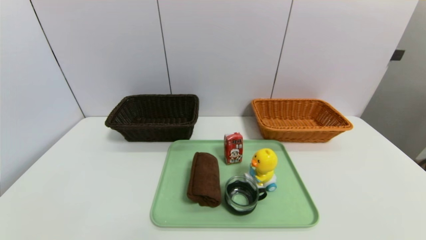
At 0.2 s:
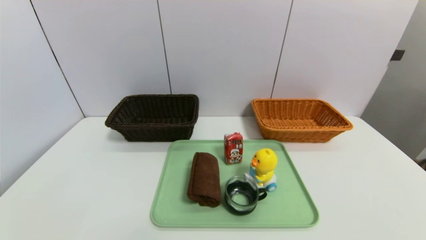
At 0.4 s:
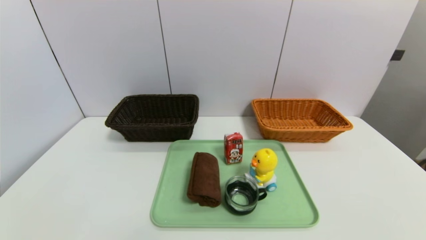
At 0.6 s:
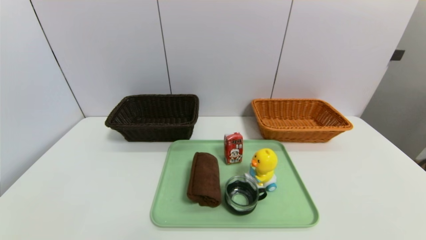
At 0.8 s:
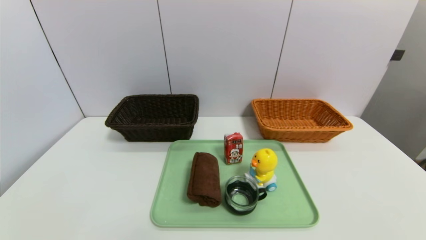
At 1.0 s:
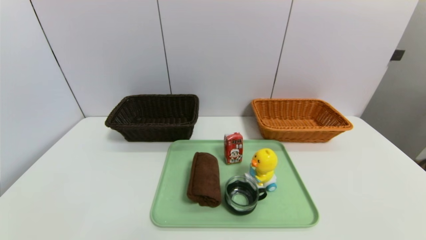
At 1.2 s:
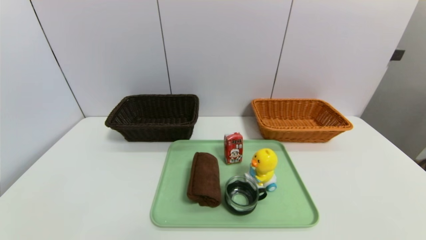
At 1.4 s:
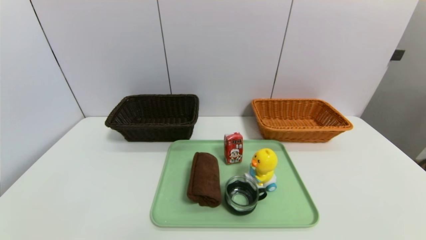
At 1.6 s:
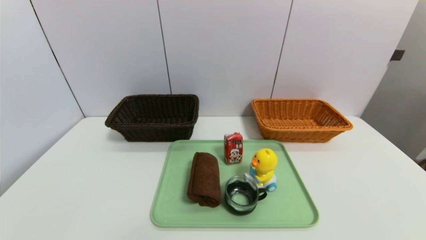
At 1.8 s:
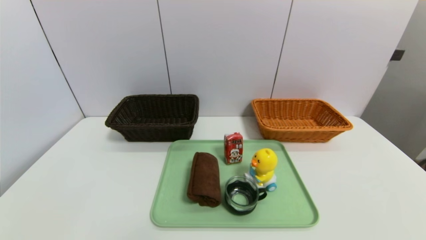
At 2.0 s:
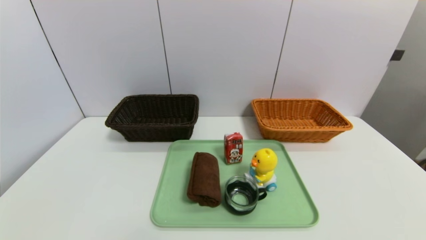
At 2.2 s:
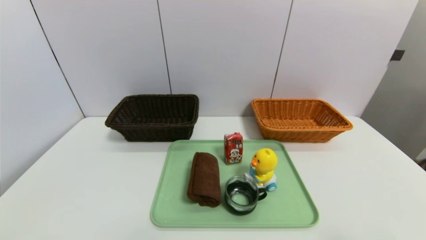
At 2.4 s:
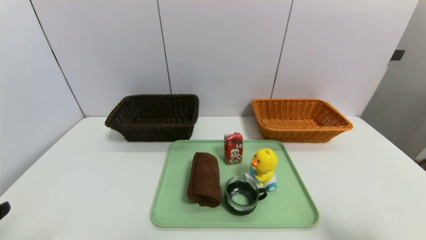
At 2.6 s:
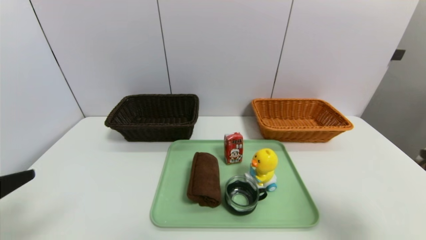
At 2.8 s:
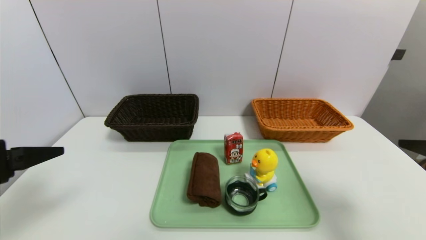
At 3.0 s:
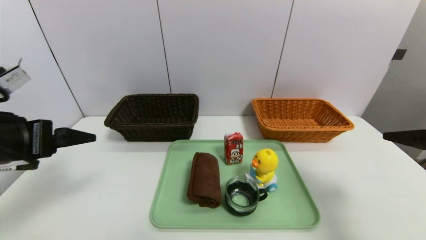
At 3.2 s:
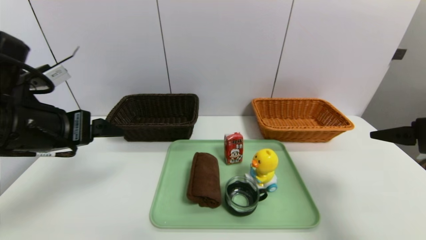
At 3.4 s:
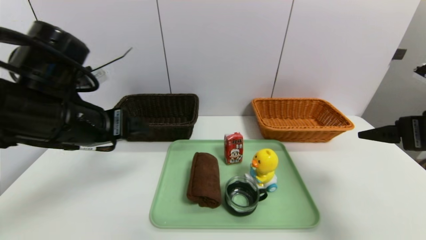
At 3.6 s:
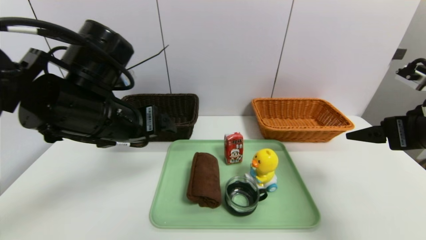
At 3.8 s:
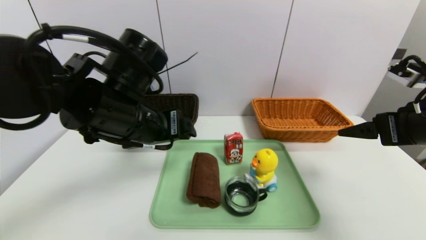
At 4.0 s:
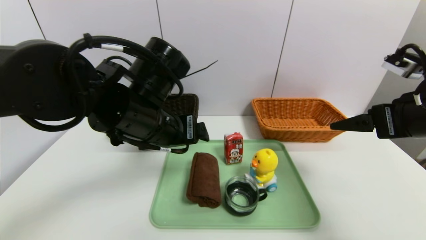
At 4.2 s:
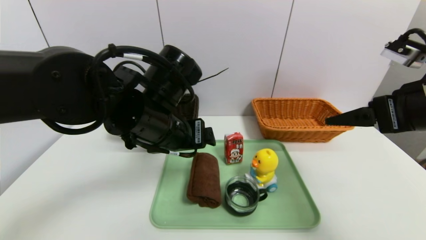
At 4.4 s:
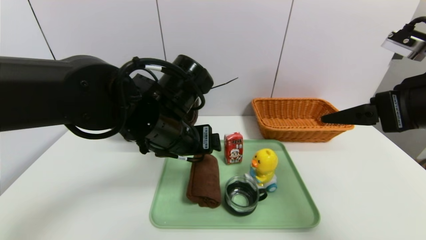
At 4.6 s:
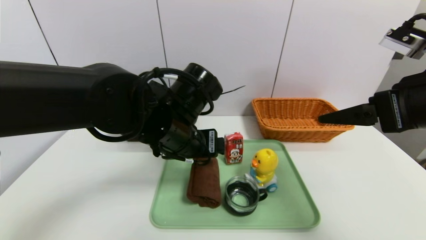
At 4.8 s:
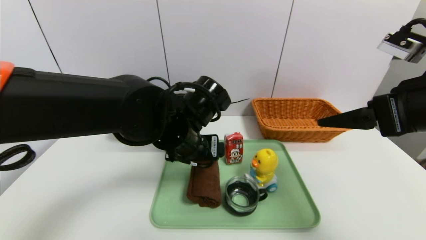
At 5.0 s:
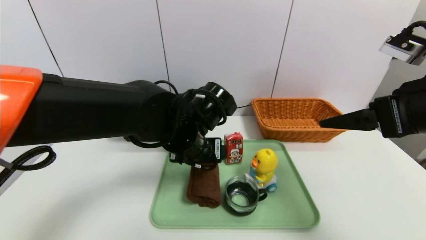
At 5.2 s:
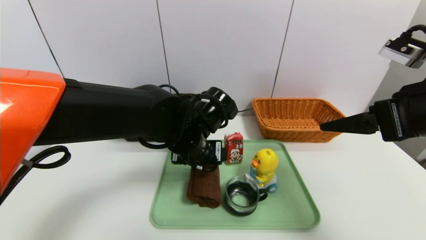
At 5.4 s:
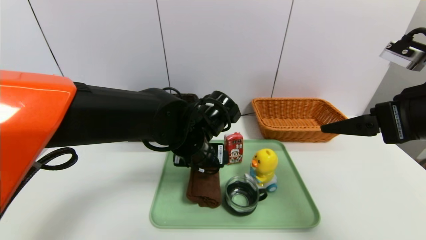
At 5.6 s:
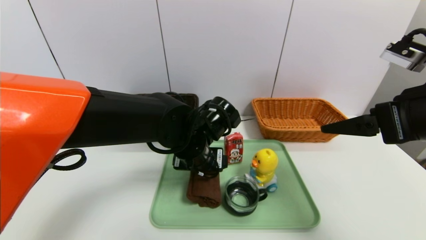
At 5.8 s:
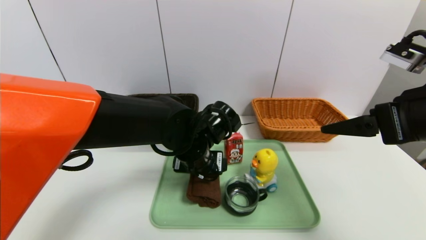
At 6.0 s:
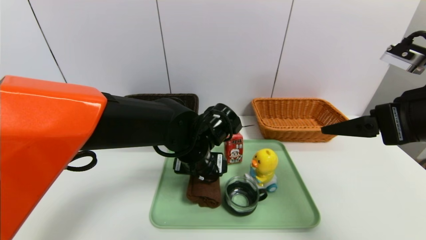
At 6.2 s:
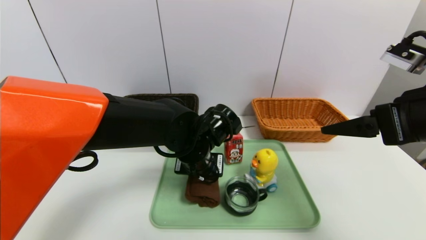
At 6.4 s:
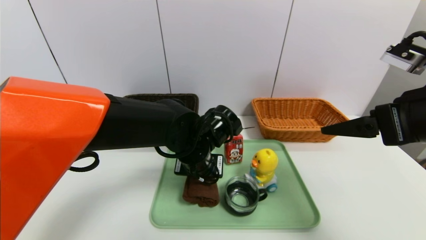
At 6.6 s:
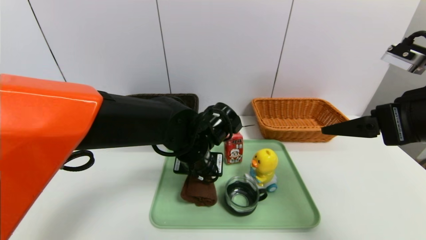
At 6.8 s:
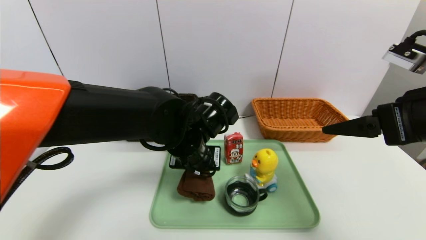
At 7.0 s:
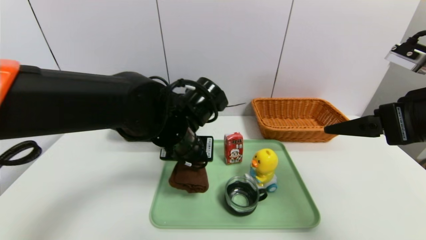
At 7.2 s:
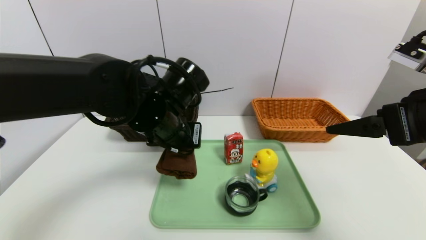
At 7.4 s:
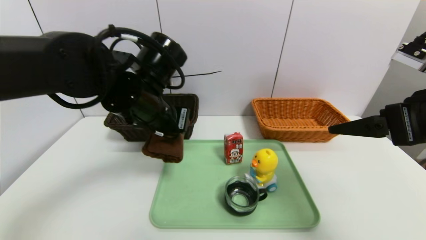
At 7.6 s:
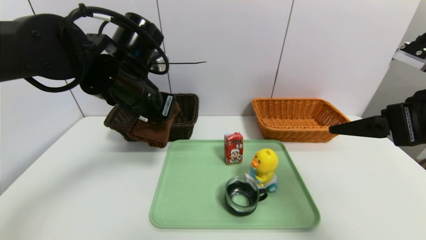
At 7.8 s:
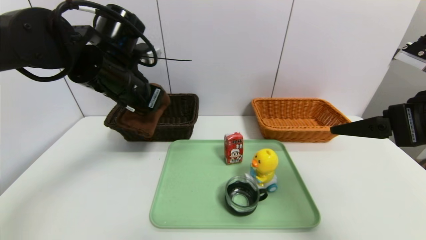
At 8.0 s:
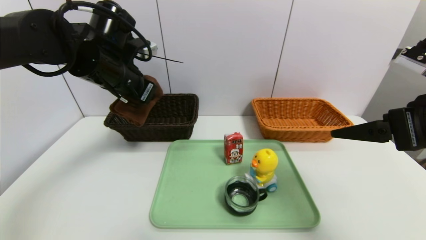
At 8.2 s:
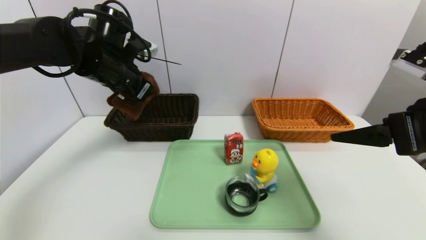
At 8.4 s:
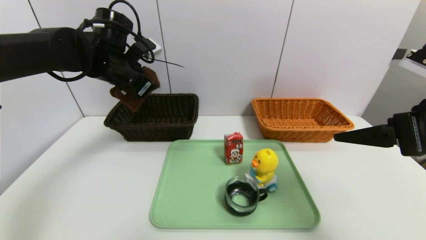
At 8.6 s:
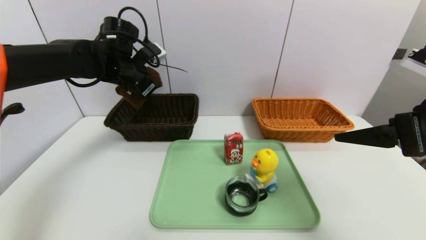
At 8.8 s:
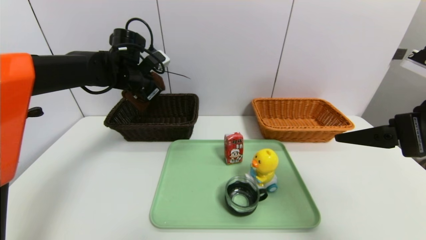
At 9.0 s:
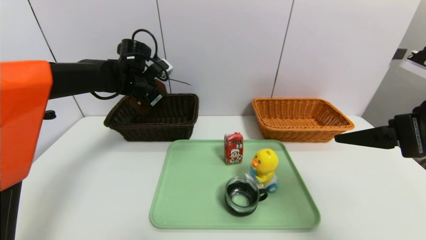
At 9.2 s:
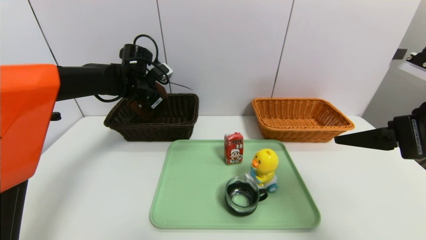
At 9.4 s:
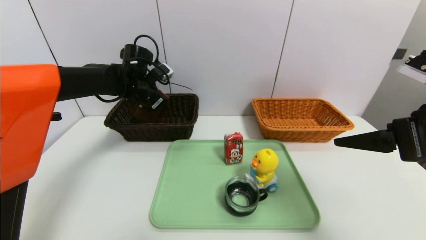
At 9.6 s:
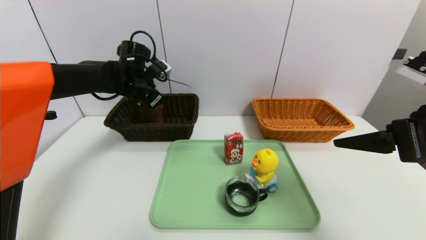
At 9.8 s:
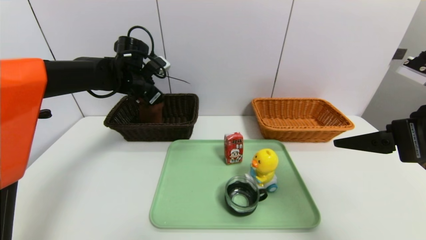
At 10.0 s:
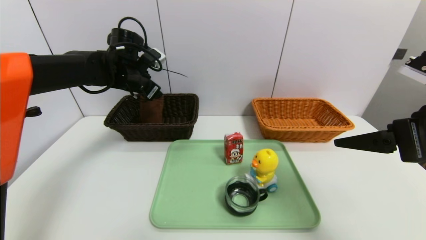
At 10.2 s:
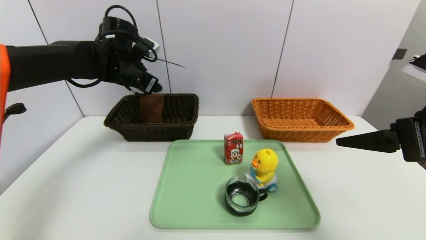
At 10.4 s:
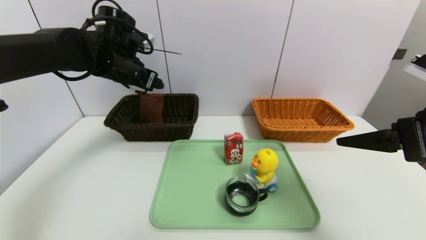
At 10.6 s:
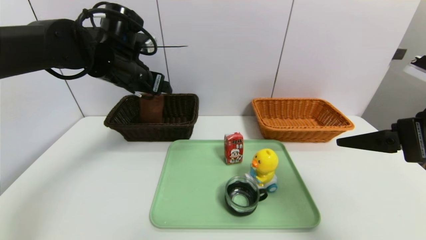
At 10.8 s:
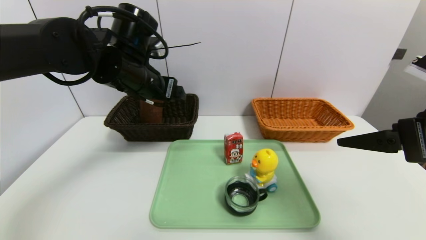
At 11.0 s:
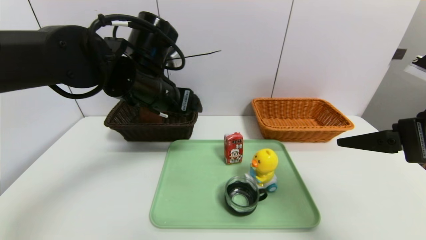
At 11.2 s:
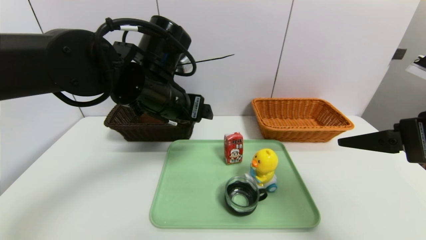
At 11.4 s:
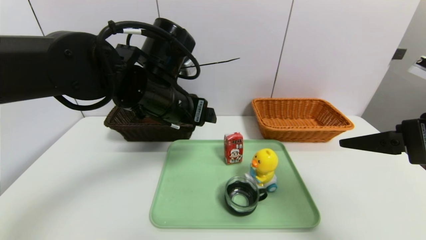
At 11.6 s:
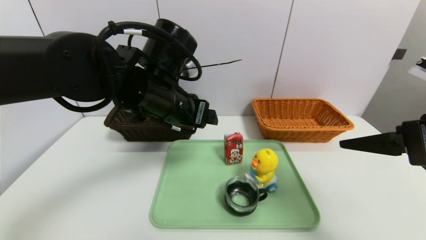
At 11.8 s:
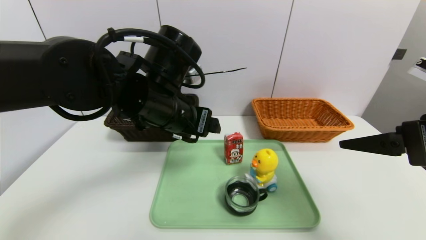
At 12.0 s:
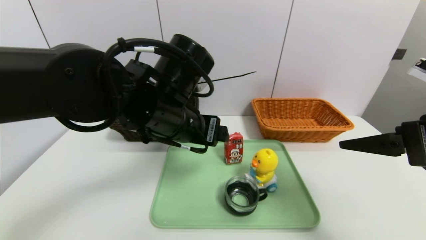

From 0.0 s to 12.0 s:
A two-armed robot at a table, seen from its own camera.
Task of the whole recording: place the food in the right basket with the right gripper, and place the non food items in the left basket with the left gripper.
Step, from 0.0 s to 9.6 s: Grasp the brown towel and put it in the left basket.
From 1.6 s to 3.0 s: The grippers both shift forward and upward by some 25 cm.
From 3.0 s to 4.4 s: The left gripper shifts roughly 20 cm to the right; the right gripper is displaced to the left by some 5 cm.
From 4.4 s to 6.0 s: The left gripper shifts some 10 cm downward.
From 6.0 s to 7.6 s: The left gripper shifts approximately 15 cm upward and to the left, and closes its fingers.
From 7.6 s to 9.0 s: The left gripper goes some 15 cm forward.
From 9.0 s to 10.4 s: The left gripper heads upward and backward, covering some 10 cm, and opens up.
From 10.4 s to 12.0 s: The left gripper heads backward and to the right, covering about 20 cm.

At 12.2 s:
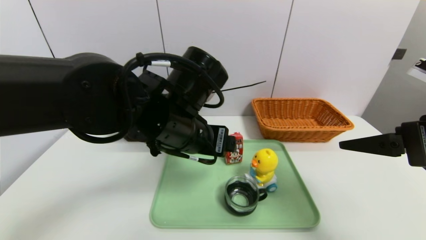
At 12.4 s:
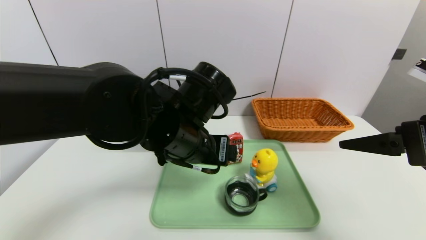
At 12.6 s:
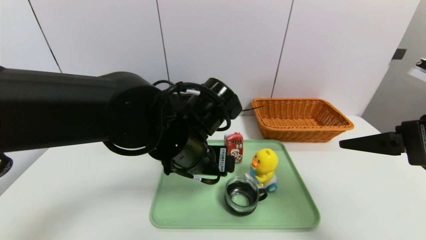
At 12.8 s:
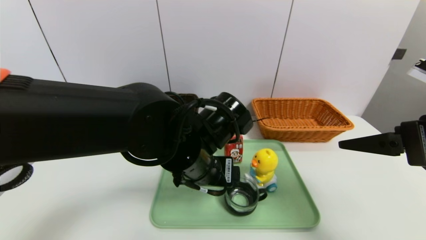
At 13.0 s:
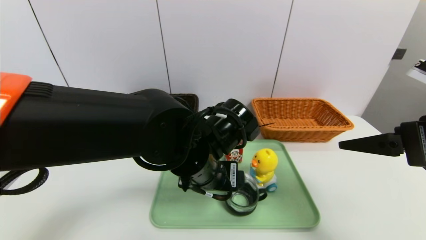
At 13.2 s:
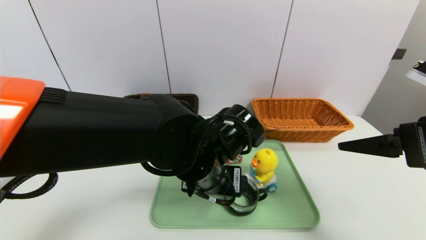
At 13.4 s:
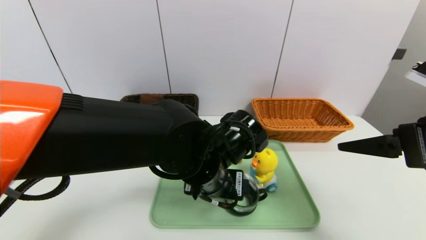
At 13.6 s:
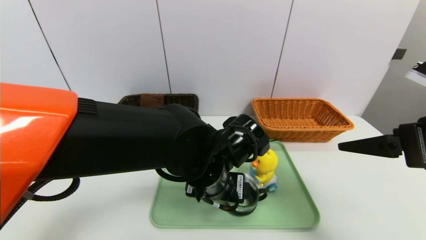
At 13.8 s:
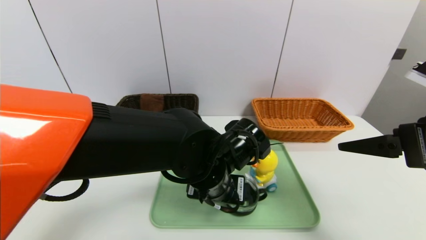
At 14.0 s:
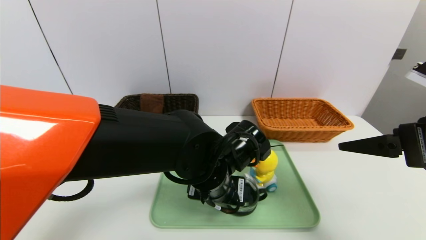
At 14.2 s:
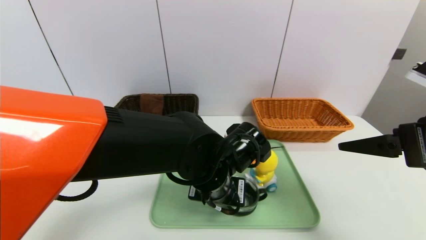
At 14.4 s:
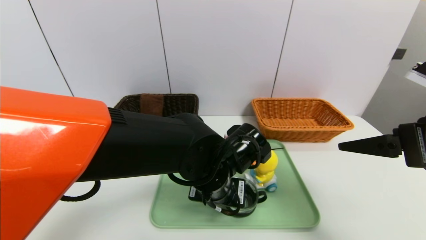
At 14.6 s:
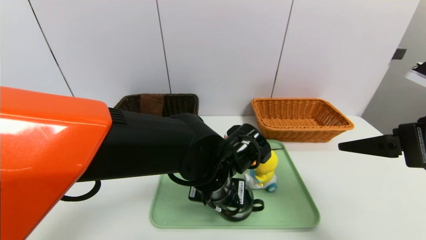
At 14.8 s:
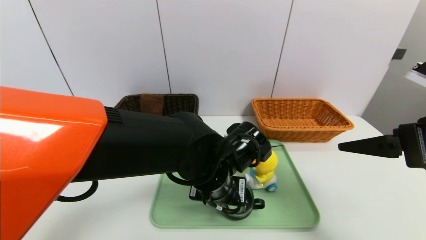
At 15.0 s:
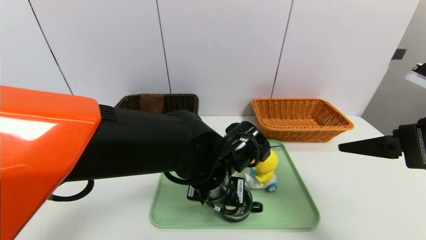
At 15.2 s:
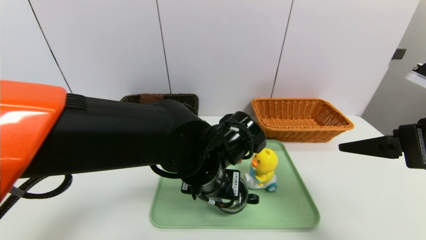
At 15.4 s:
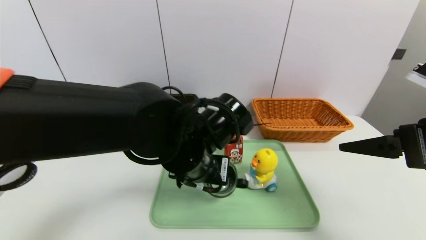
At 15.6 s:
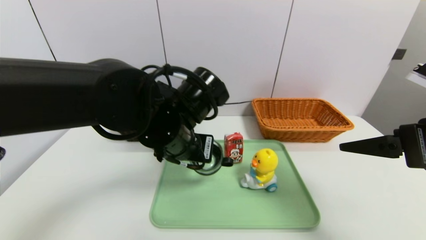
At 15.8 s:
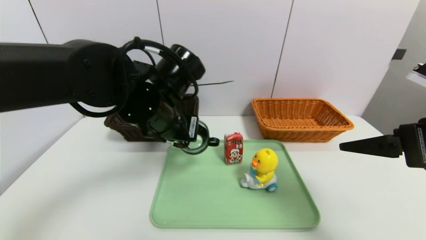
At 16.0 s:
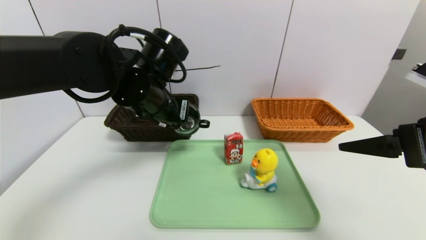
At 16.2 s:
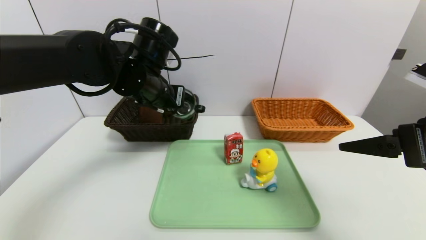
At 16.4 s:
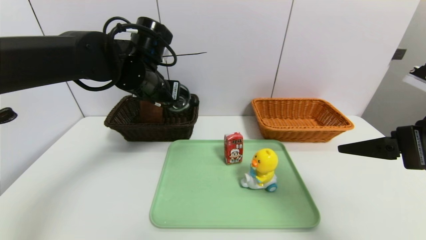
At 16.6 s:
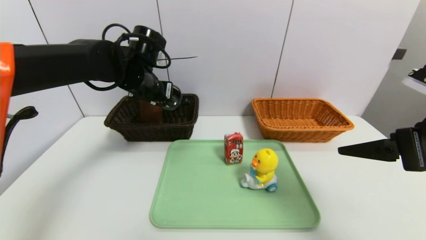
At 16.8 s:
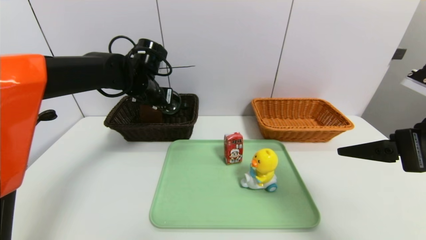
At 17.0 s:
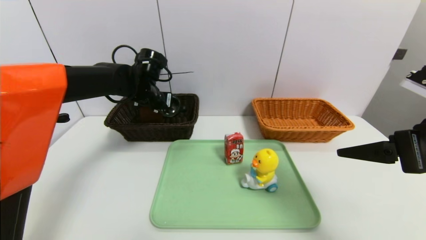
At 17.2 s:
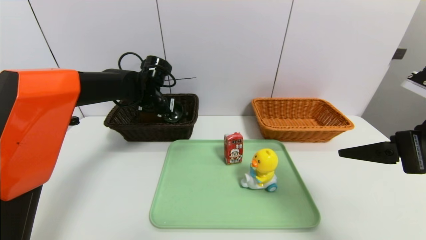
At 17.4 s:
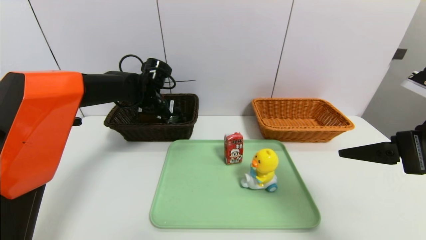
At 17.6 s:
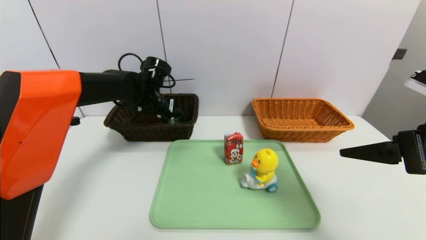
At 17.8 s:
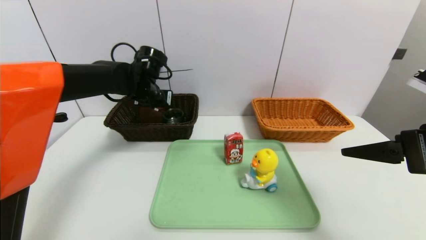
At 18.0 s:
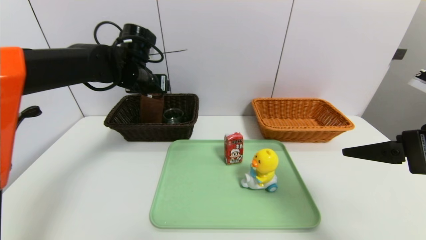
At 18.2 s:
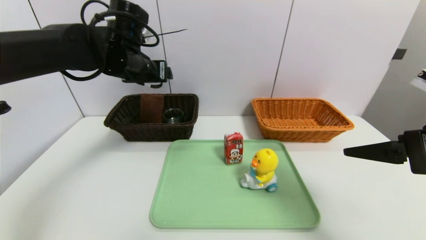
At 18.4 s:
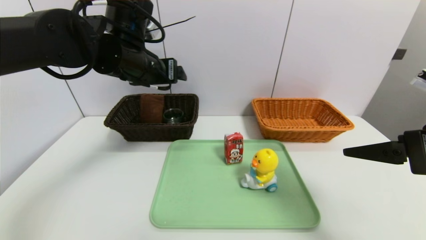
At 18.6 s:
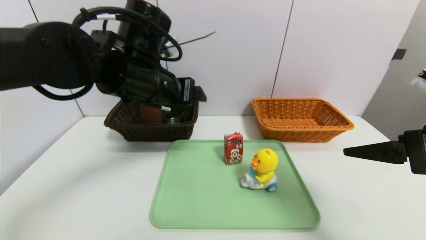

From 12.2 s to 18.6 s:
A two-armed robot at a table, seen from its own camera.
Task of the whole recording: place the food in the right basket with the right gripper, and place the non food items in the left basket with the left gripper.
Step, from 12.2 s to 17.8 s: Grasp the black glass cup and put it in the left basket.
From 12.2 s to 13.8 s: The left gripper moves downward and to the right, about 10 cm.
From 13.8 s to 15.4 s: The left gripper ends up approximately 5 cm from where it was, and closes up.
From 15.4 s to 17.0 s: The left gripper is displaced forward and to the left by roughly 25 cm.
From 17.0 s to 18.6 s: The left gripper goes roughly 15 cm backward and upward, and opens up.
